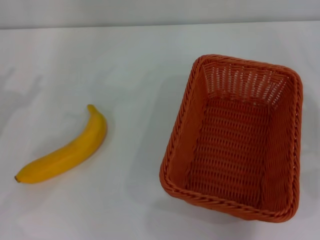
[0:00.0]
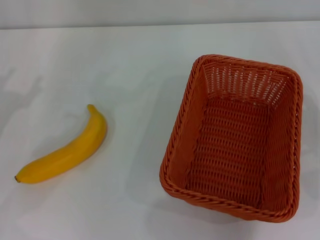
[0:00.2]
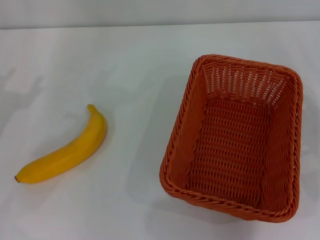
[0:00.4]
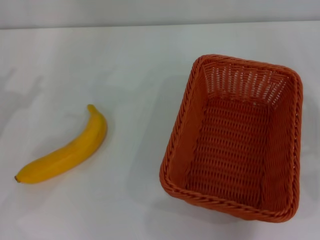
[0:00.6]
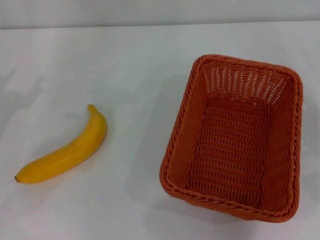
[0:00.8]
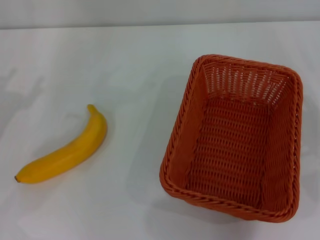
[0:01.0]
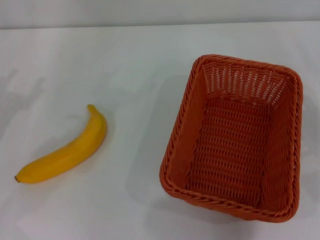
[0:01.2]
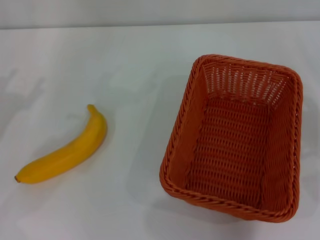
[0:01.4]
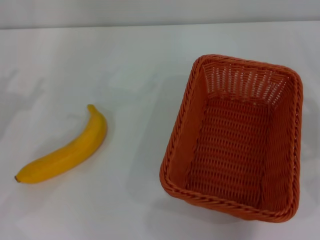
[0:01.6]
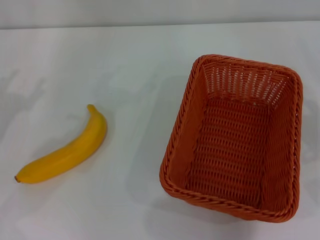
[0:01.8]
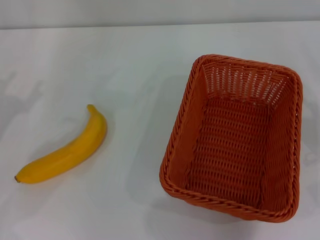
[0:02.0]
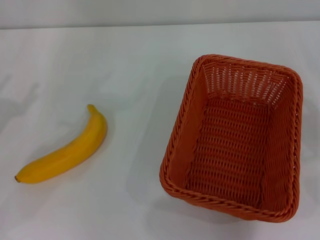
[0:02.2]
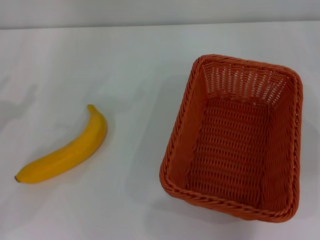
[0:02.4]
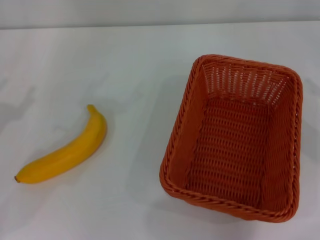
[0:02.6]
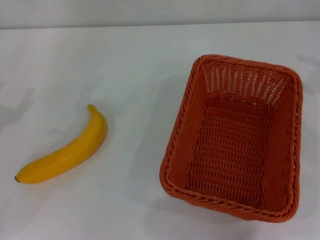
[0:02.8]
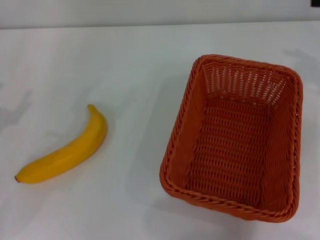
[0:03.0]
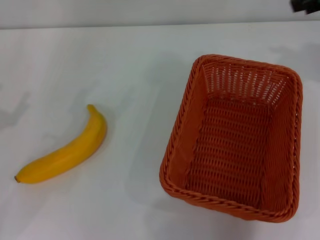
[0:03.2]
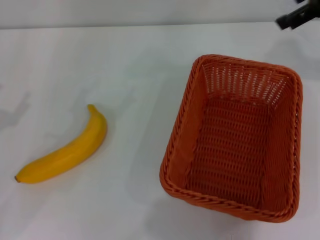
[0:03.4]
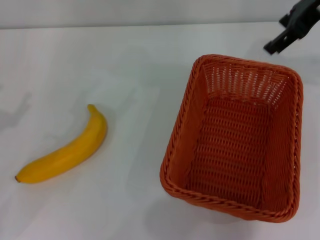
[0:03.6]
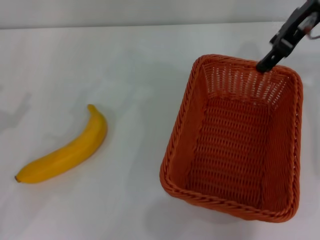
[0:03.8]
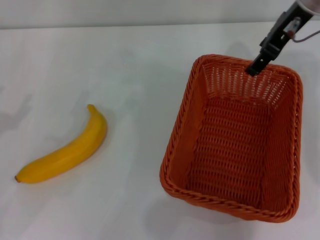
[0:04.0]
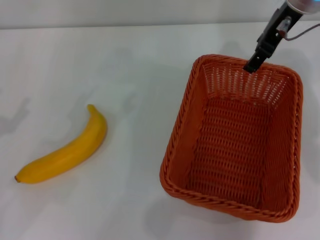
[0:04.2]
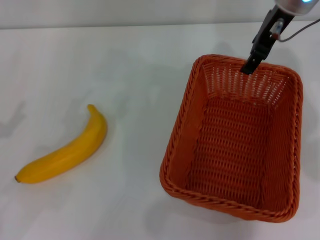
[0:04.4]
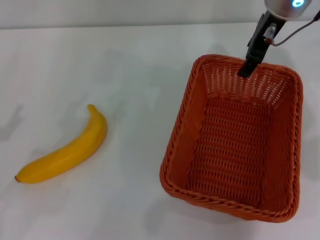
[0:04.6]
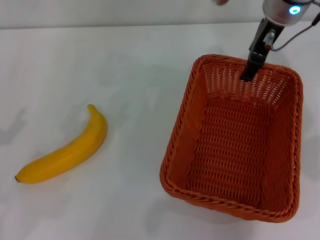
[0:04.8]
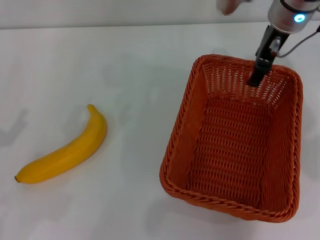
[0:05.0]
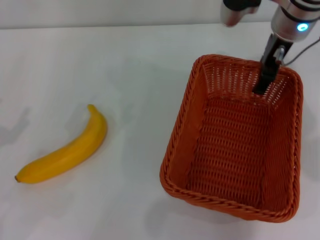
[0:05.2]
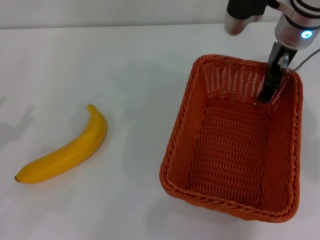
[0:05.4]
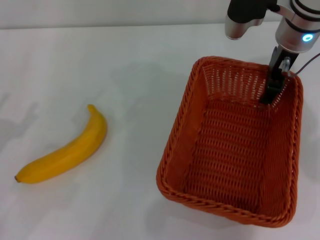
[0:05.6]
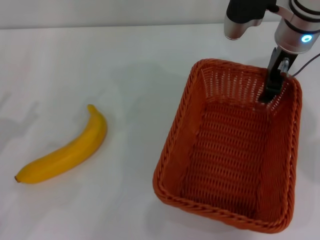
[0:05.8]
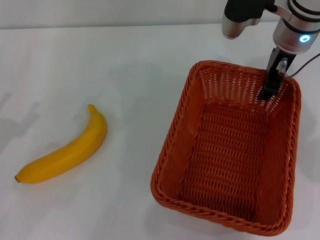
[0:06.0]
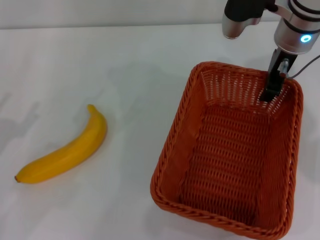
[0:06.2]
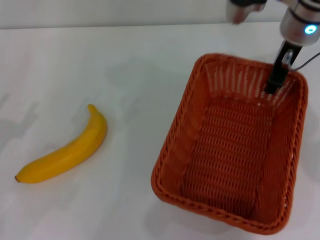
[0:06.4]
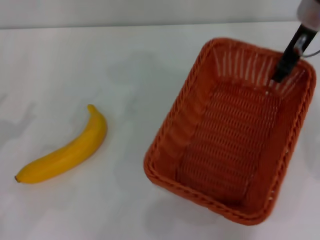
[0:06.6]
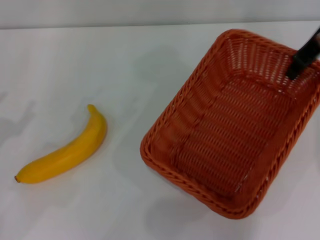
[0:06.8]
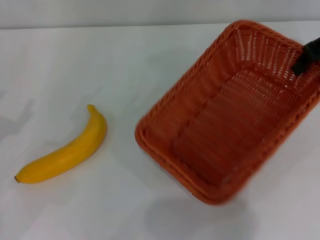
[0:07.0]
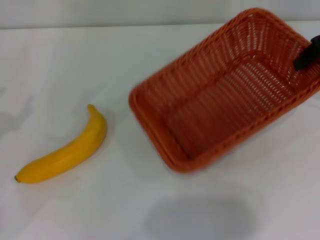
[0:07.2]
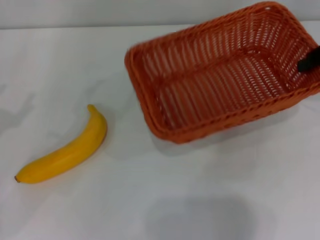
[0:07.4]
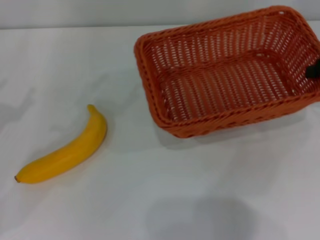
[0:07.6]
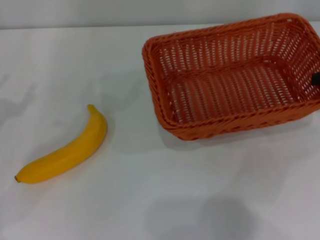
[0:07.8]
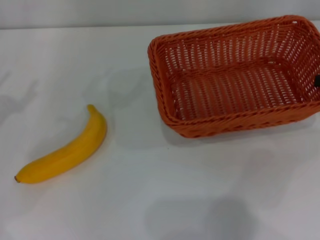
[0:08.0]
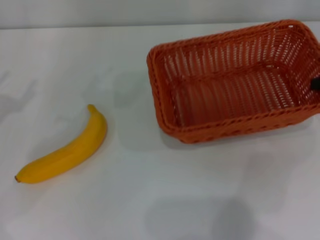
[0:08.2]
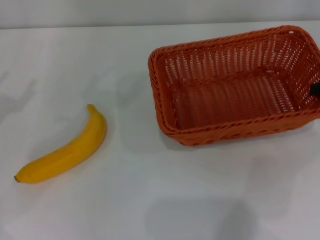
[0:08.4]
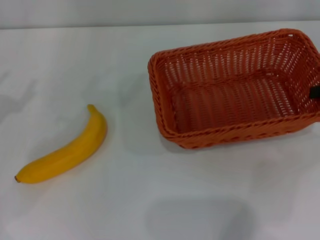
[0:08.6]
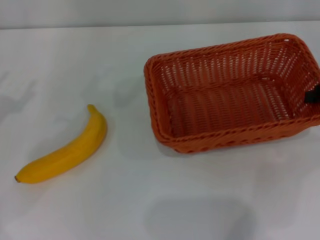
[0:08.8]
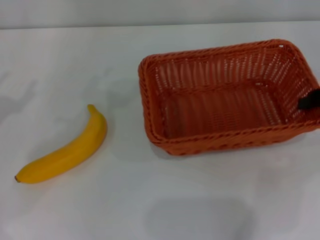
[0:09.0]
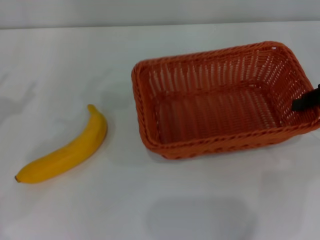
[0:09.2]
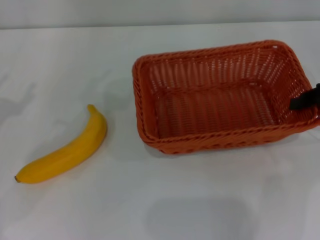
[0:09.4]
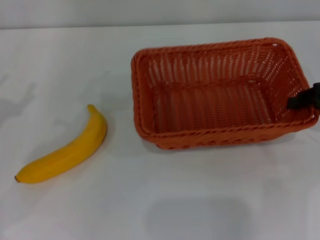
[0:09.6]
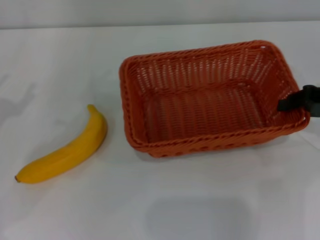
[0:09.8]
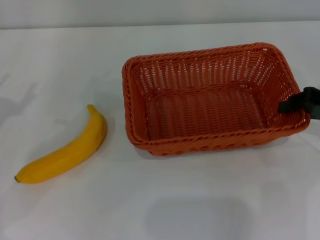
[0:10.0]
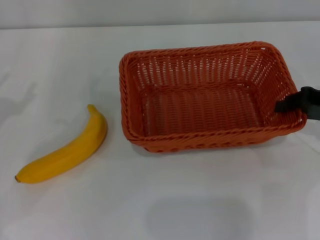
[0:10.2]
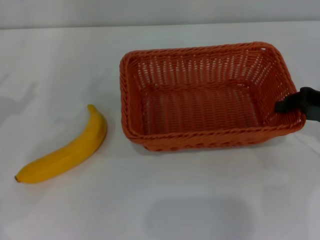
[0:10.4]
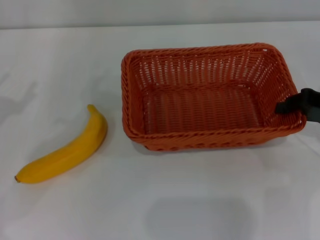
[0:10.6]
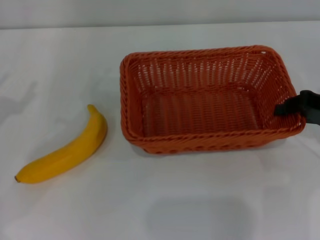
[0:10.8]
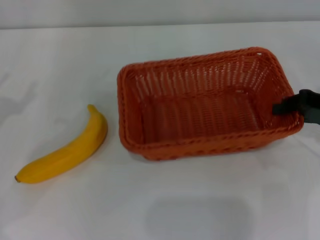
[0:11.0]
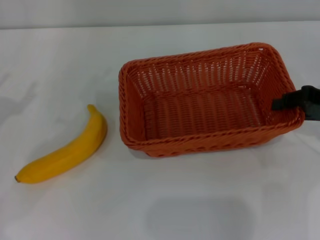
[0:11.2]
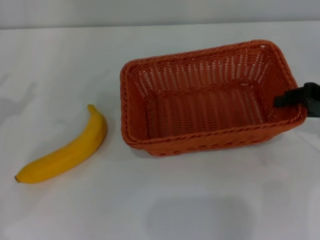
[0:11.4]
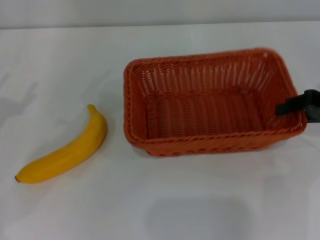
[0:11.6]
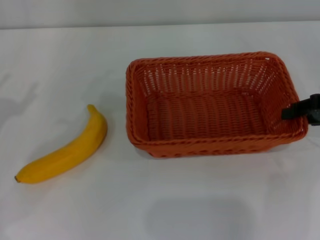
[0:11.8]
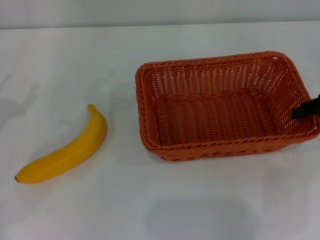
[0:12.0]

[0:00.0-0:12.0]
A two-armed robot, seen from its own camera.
Step, 0:00.0 to 0:06.2: Pick up the light basket with the right gripper.
0:00.0 to 0:01.6: Both grippers stay put.
0:03.0 to 0:04.4: The right gripper travels to the left and forward by some 20 cm.
0:04.4 to 0:06.0: The right gripper travels downward by roughly 5 cm, and closes up.
0:06.0 to 0:07.6: The right gripper travels to the right and backward by about 20 cm, and closes up.
0:07.6 to 0:09.0: The right gripper changes place by roughly 5 cm.
0:09.0 to 0:12.0: The grippers stay close to where they were, moving slightly.

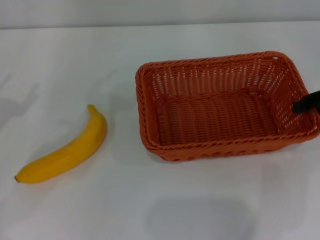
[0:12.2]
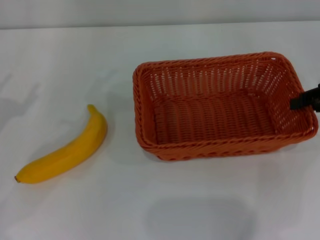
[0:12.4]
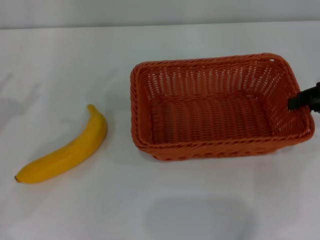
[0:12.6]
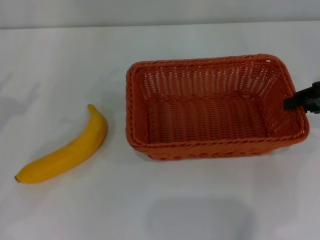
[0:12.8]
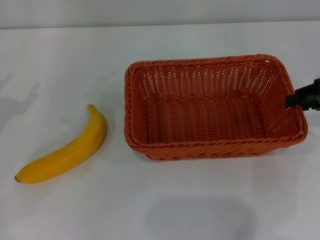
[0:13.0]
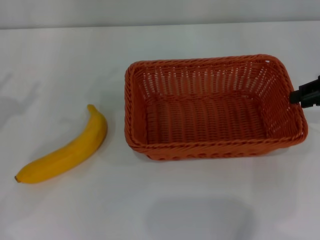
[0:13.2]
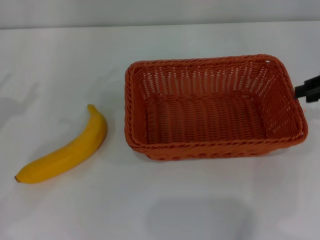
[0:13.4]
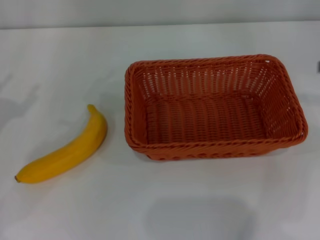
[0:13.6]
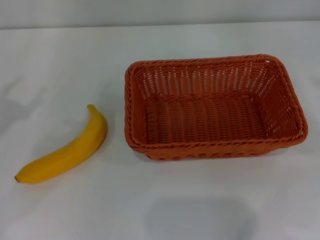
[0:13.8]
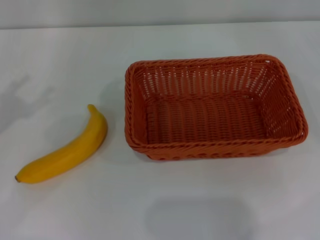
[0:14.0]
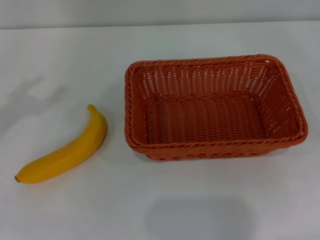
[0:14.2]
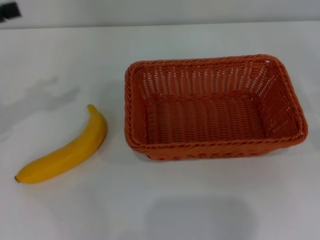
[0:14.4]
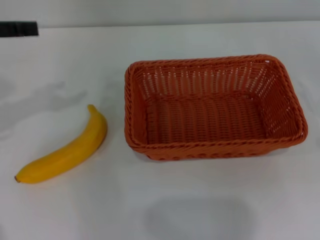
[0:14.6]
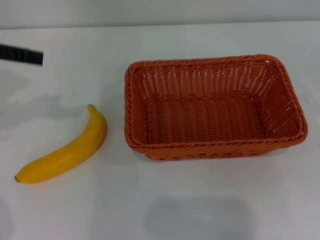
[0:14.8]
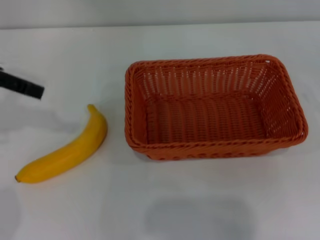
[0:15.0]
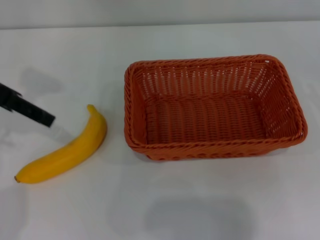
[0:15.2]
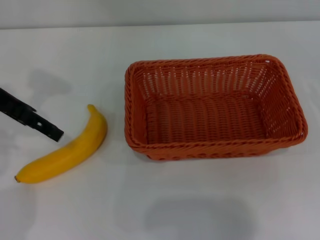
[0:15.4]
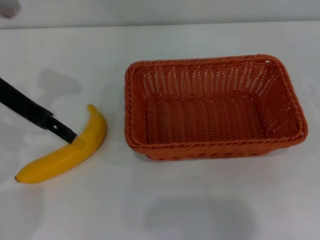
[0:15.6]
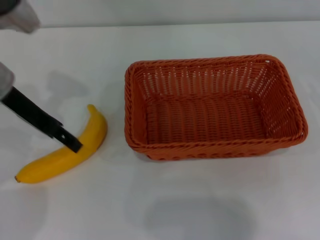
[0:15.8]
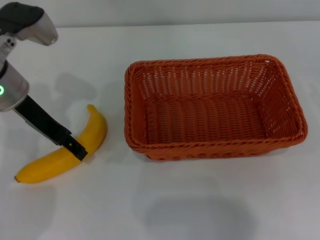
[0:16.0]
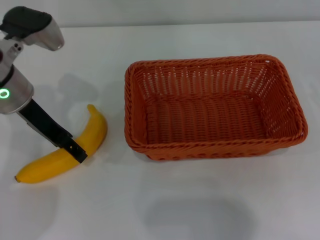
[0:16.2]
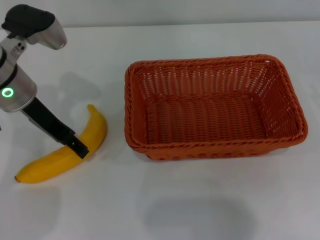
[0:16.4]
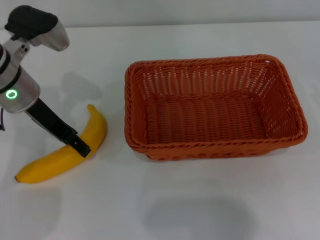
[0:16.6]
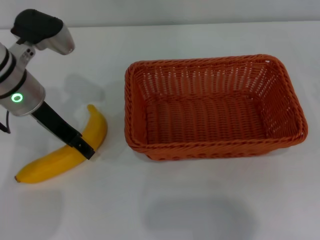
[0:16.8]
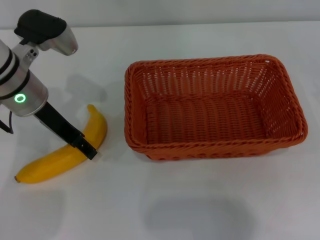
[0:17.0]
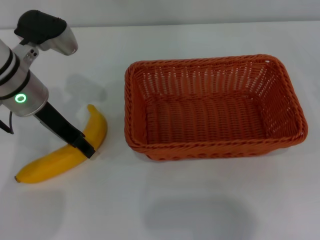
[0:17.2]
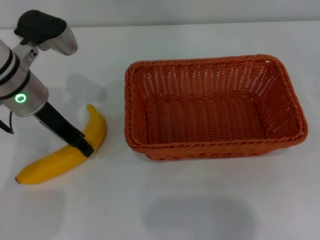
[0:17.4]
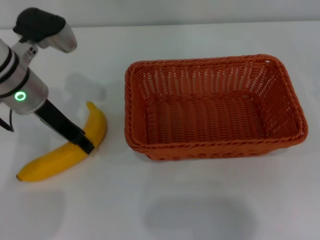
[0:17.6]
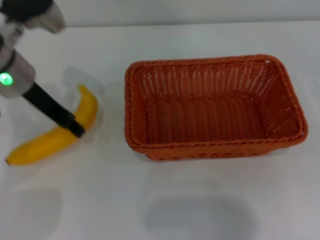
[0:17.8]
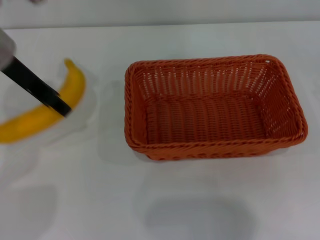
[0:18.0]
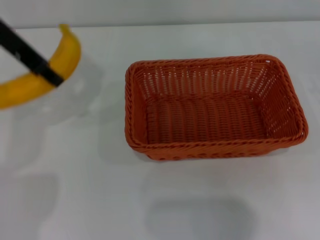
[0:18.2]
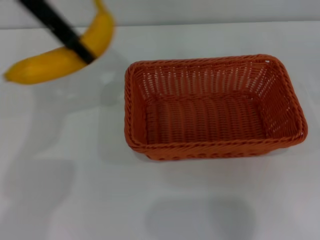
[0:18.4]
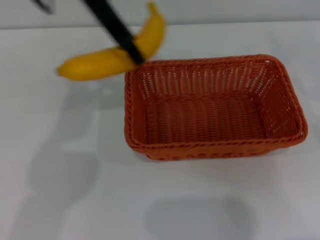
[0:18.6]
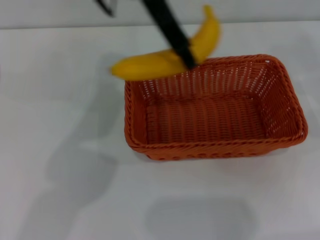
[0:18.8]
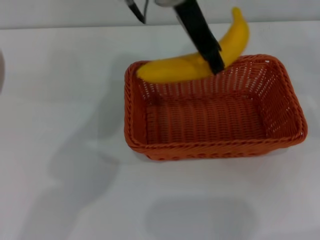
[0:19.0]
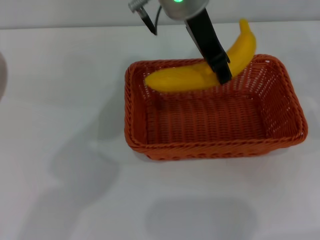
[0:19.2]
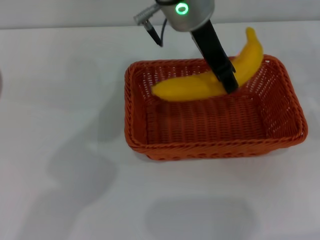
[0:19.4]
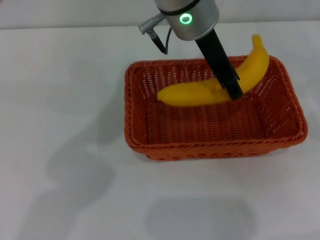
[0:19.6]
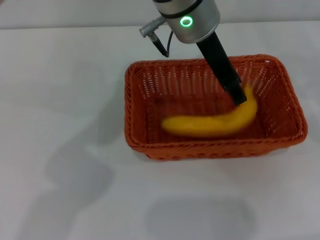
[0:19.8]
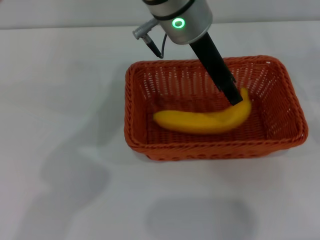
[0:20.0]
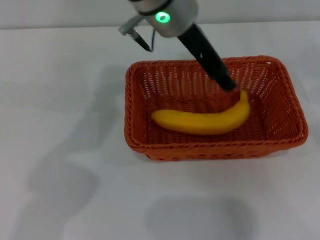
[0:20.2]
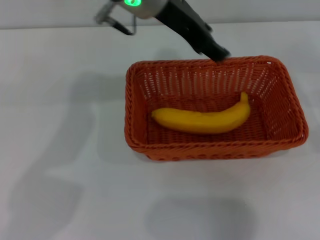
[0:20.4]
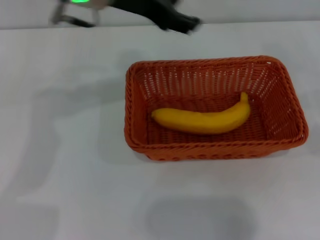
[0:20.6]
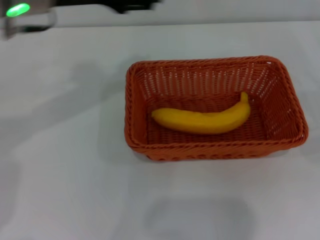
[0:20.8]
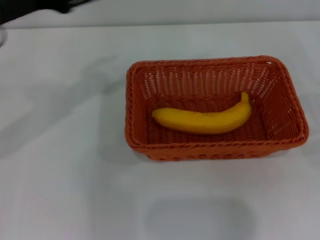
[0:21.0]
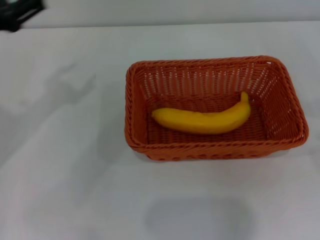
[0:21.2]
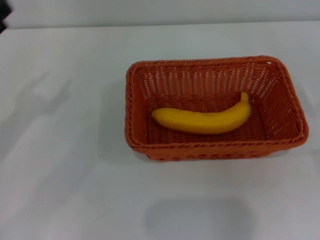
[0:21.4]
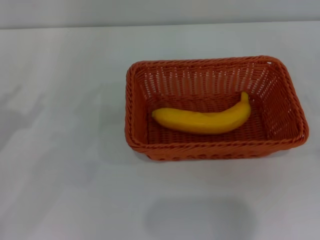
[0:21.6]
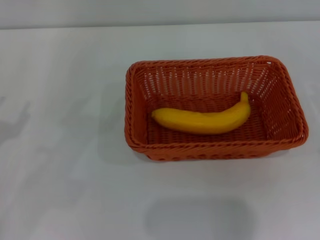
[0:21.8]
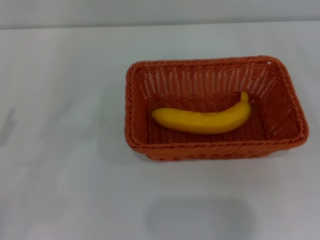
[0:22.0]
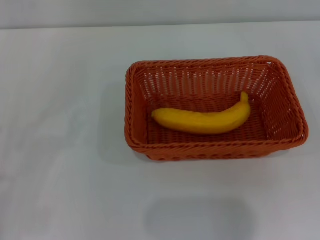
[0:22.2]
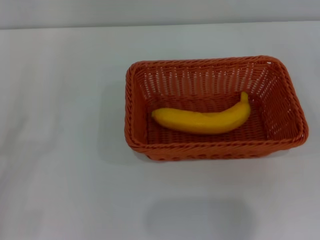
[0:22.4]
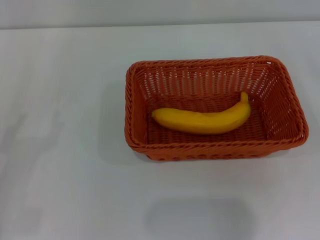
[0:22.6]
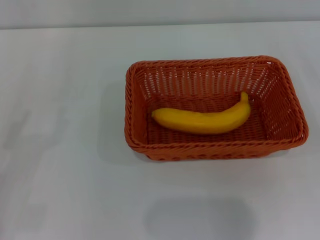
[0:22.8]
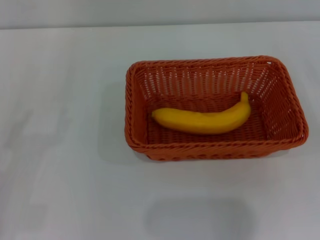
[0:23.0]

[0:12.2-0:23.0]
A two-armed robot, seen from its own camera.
Step, 0:13.6 to 0:17.8: Pick up the banana with the left gripper.
Step, 0:18.0 to 0:20.0: Place the banana into the light basket with the left gripper.
0:12.2 to 0:13.8: The right gripper moves to the right and upward, roughly 10 cm.
0:13.8 to 0:15.2: The left gripper is displaced upward, forward and to the right by roughly 15 cm.
0:15.2 to 0:16.8: The left gripper is displaced downward and to the right by some 15 cm.
0:16.8 to 0:18.4: The left gripper shifts about 15 cm upward, and closes up.
0:18.4 to 0:20.0: The left gripper goes approximately 15 cm to the right.
0:20.0 to 0:21.4: The right gripper moves some 5 cm; the left gripper is displaced to the left by roughly 35 cm.
